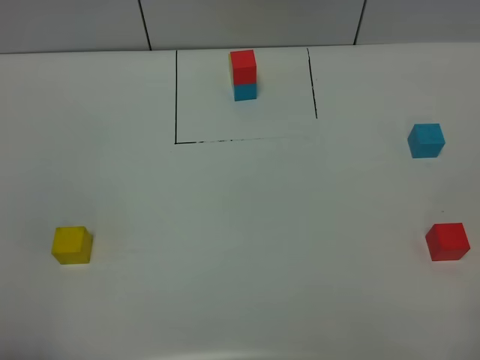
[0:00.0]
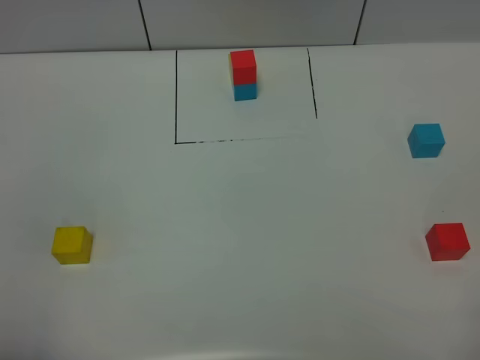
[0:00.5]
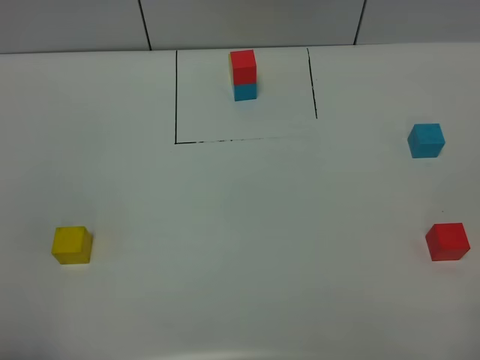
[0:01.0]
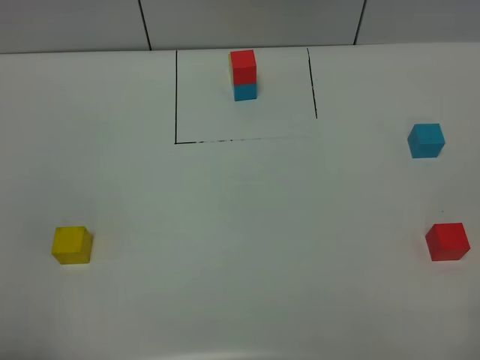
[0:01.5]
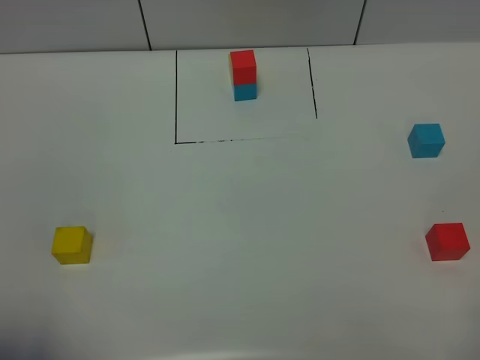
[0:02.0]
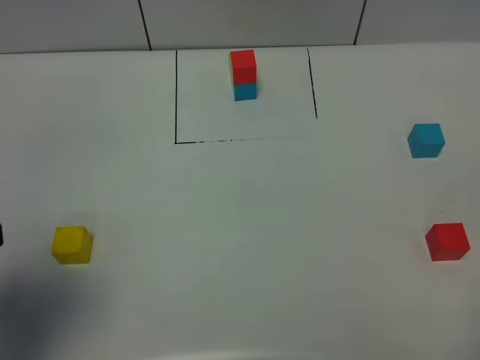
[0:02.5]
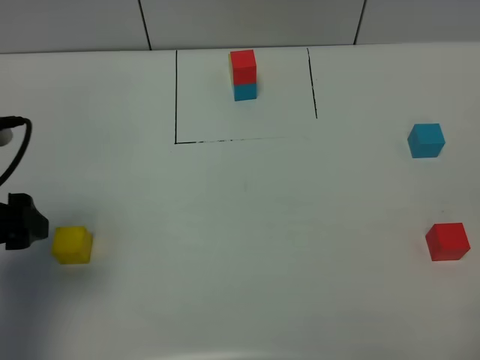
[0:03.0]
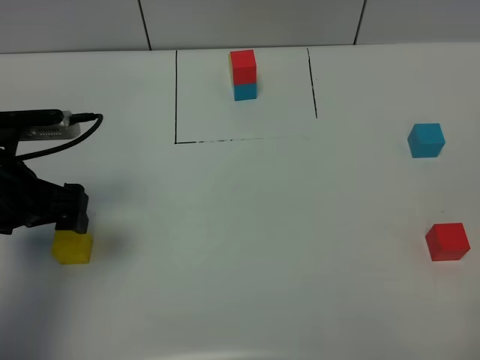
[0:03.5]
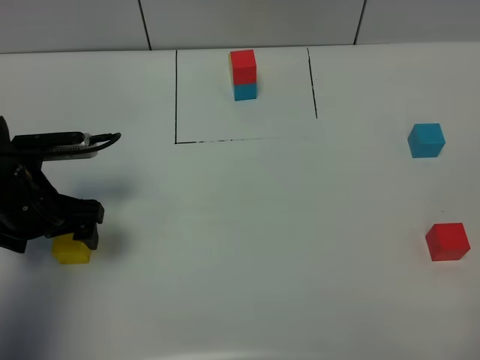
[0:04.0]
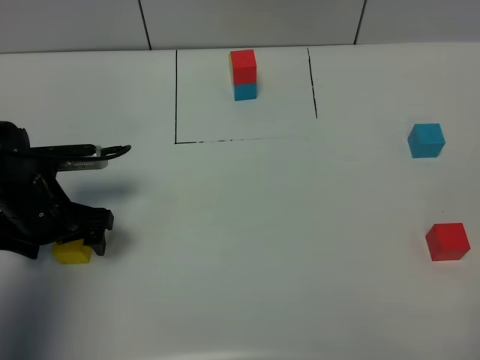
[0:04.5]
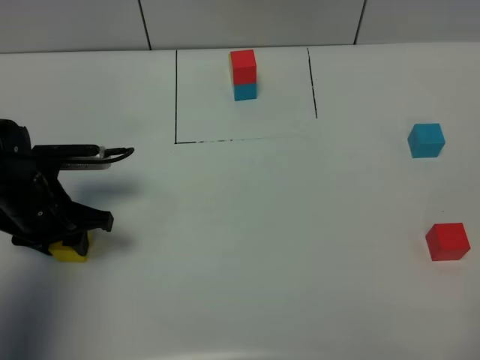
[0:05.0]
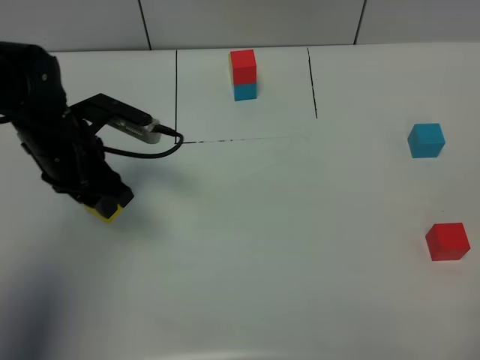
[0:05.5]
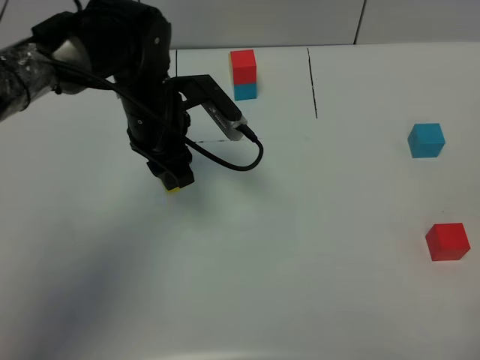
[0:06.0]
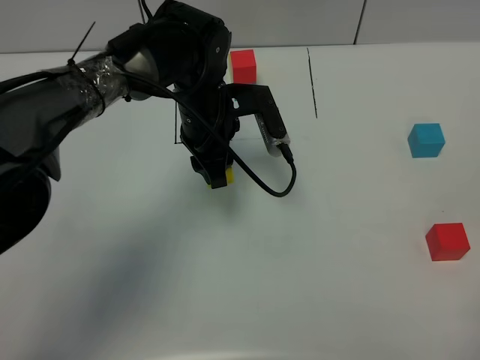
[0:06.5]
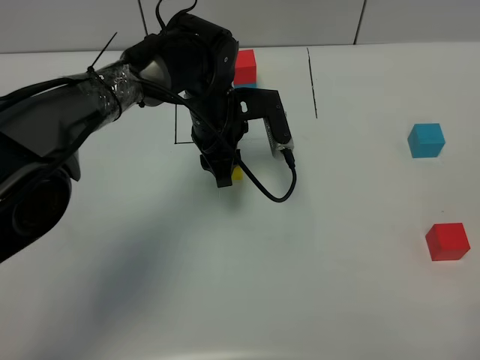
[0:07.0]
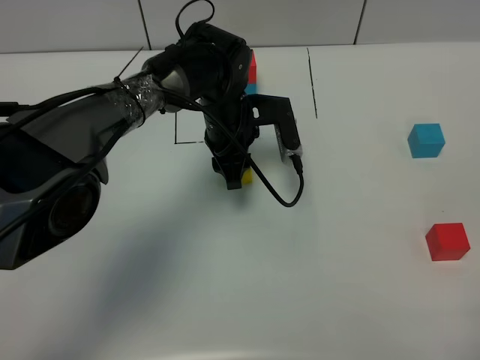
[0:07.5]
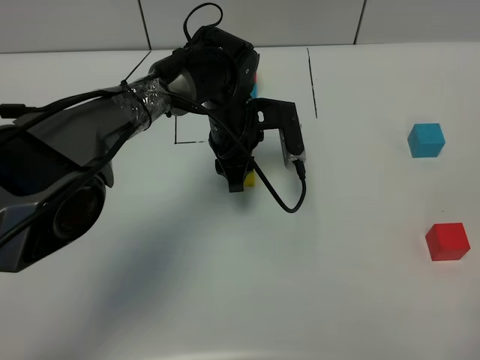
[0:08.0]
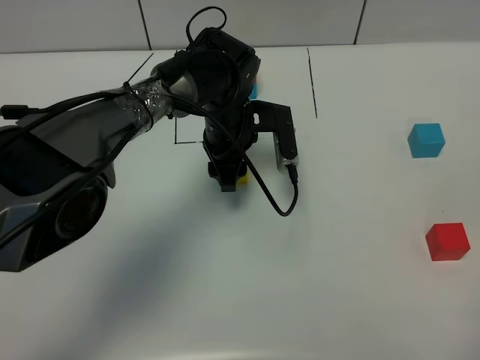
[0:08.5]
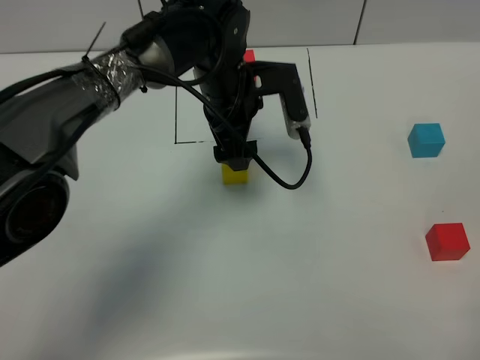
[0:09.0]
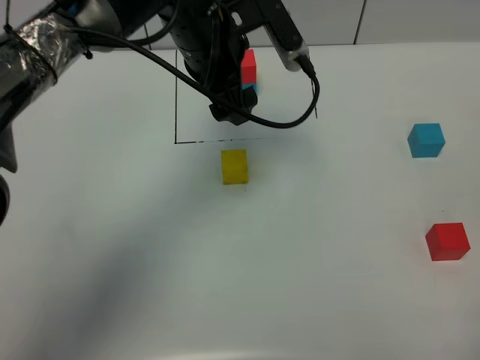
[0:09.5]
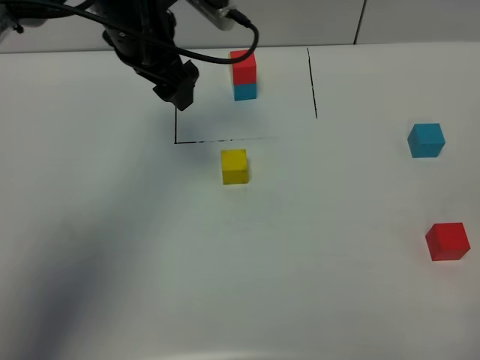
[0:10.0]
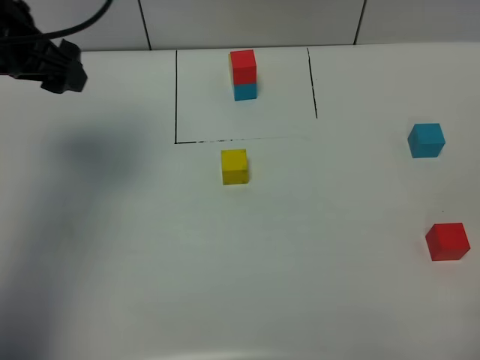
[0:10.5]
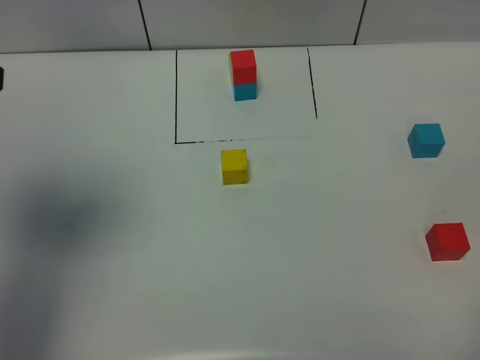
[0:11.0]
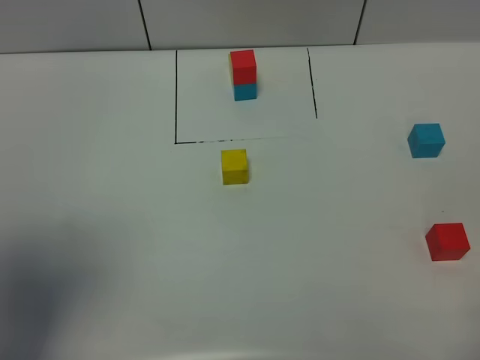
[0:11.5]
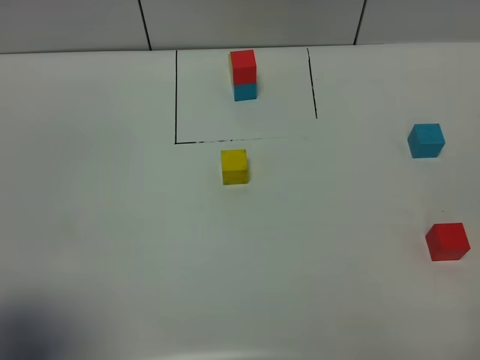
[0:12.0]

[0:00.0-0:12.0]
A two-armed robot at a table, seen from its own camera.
Task of the whole recording: According to the building block template in front, assemble the scattered blocks together.
Step, 0:00.0 to 0:08.0: Put the yellow build block in the center of the table.
0:02.0 to 0:04.0: The left gripper travels forward and downward by some 30 cm.
0:04.0 to 0:06.0: The left gripper goes roughly 20 cm to the right and forward, and closes.
0:06.0 to 0:08.0: The left gripper goes approximately 10 cm to the right and downward.
0:08.0 to 0:10.0: The left gripper travels upward and to the left by some 20 cm, and opens.
0:10.0 to 0:12.0: The left gripper is displaced backward and to the left by about 40 cm.

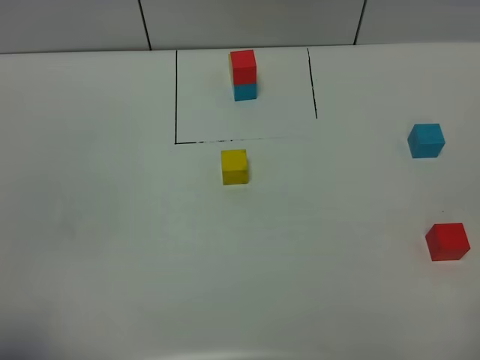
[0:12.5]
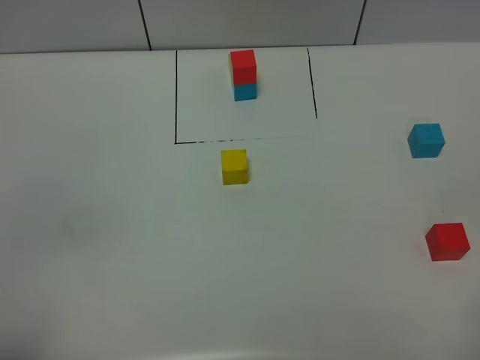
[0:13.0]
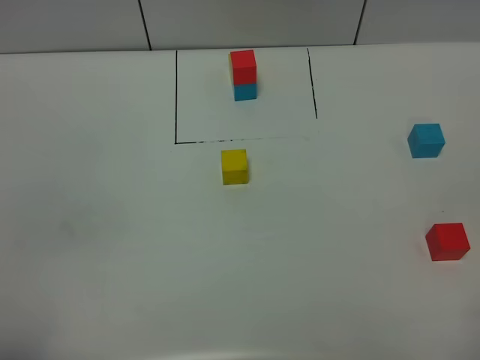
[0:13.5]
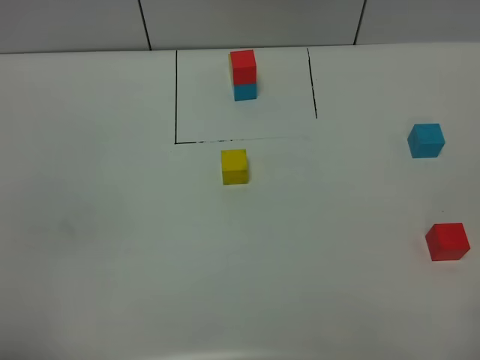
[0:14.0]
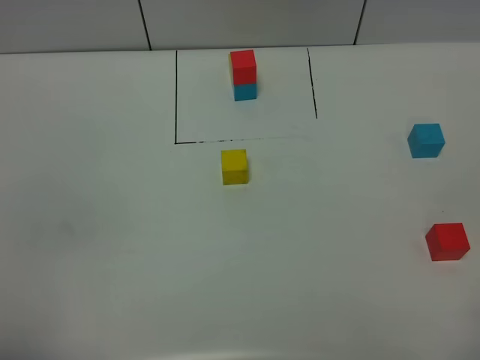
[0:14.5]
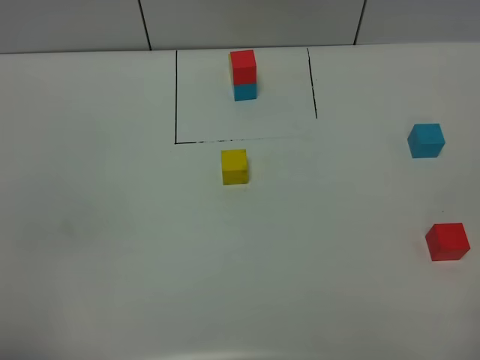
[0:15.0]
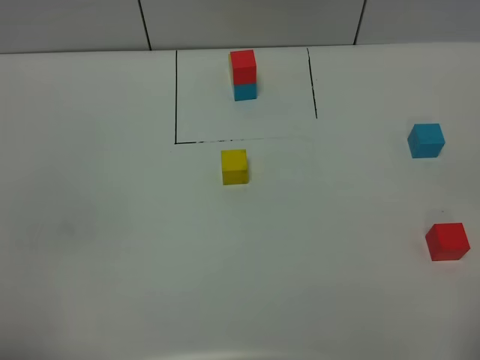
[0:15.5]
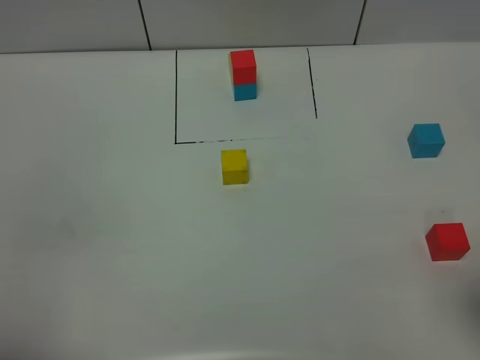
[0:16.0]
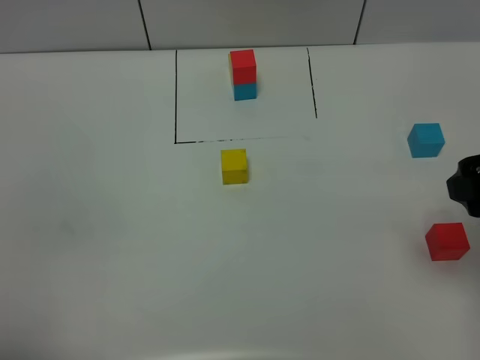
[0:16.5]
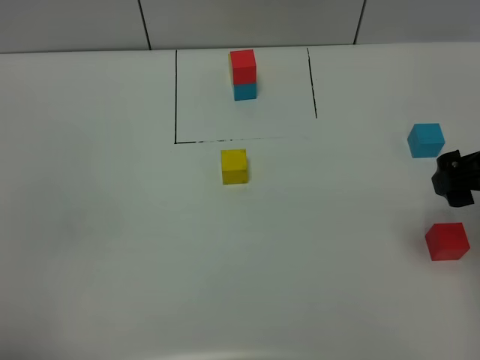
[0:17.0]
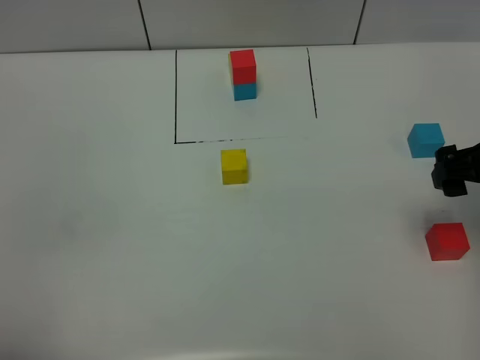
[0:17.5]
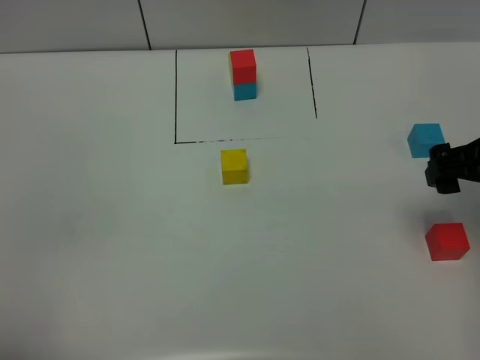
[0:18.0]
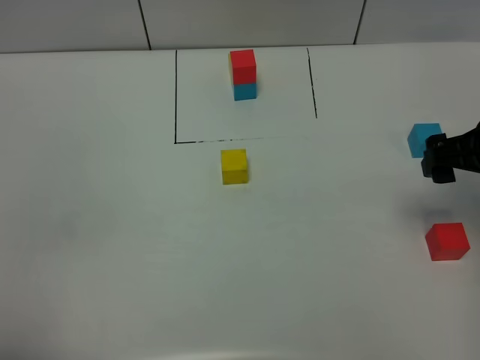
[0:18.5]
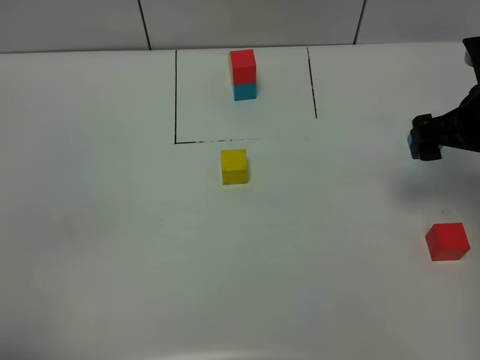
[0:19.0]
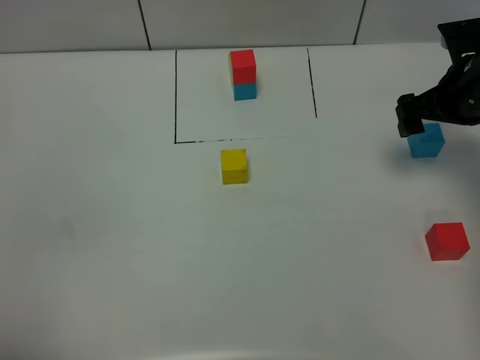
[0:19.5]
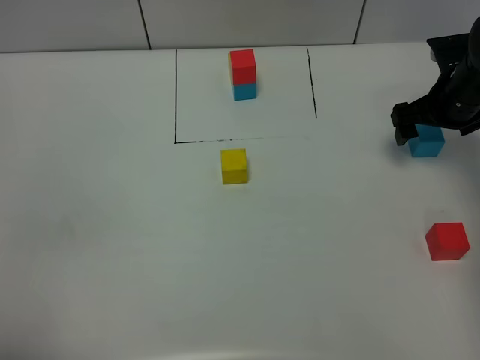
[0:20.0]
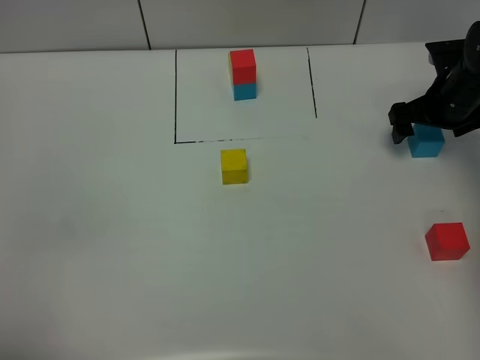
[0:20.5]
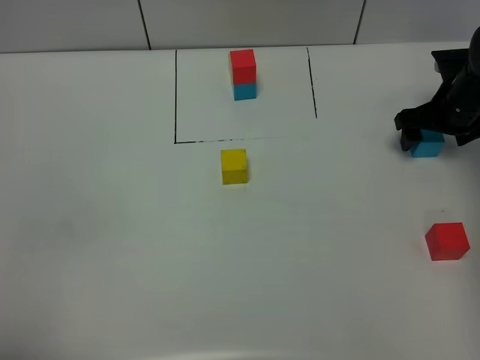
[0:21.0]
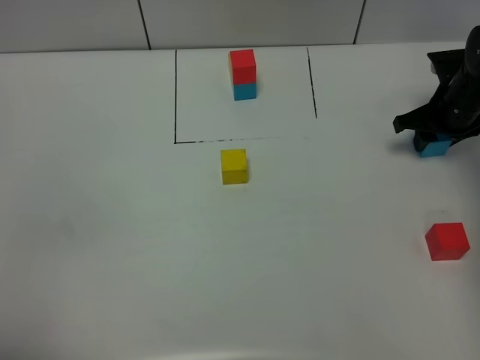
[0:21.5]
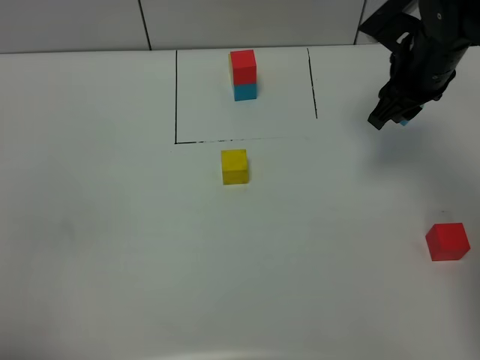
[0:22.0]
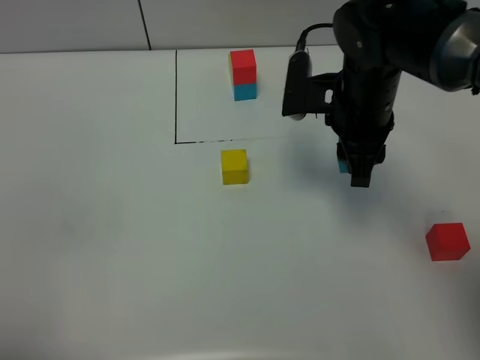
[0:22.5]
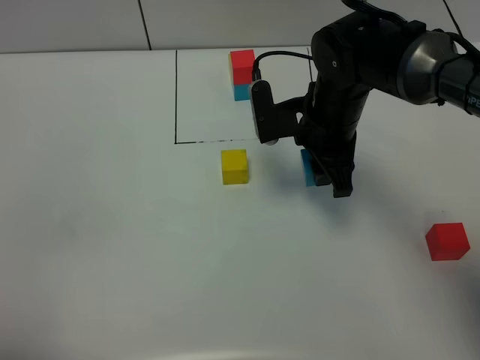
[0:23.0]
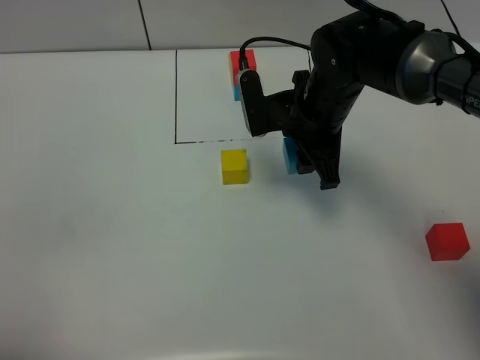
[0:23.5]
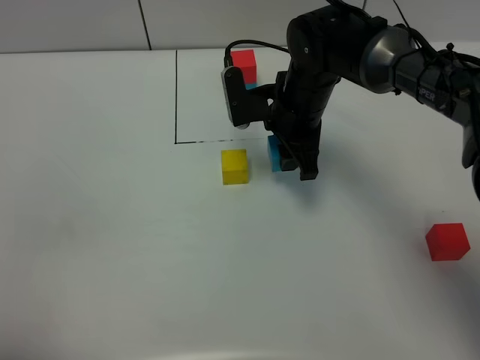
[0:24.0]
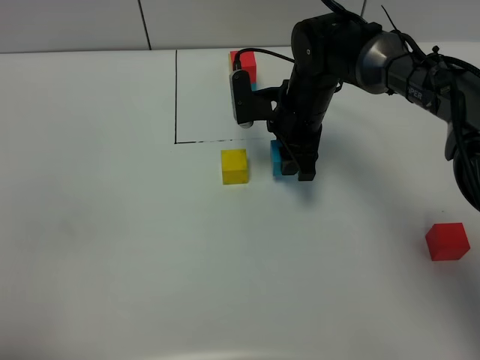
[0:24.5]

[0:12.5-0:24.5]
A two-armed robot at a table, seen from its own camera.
Task of the whole recording: According to the building block template in front, assemble the scattered blocks together.
0:14.5 to 0:16.5: The right gripper is displaced forward by roughly 20 cm.
0:16.5 to 0:18.5: The right gripper travels forward and downward by about 10 cm.
0:18.5 to 0:20.5: The right gripper shifts about 20 cm forward and downward.
0:20.5 to 0:22.5: The right gripper is displaced to the left, upward and backward by roughly 20 cm, and closes.
0:22.5 to 0:24.5: The right gripper travels downward and forward by about 10 cm.

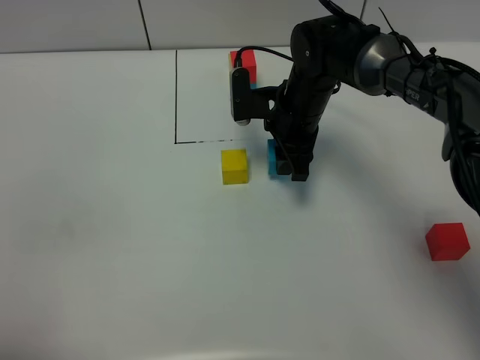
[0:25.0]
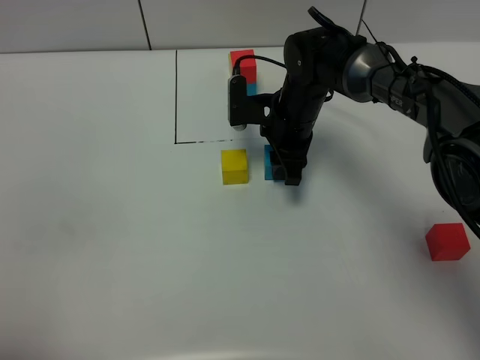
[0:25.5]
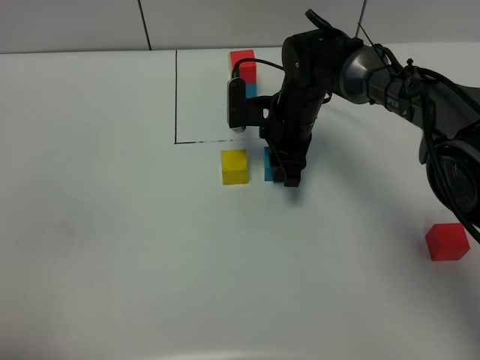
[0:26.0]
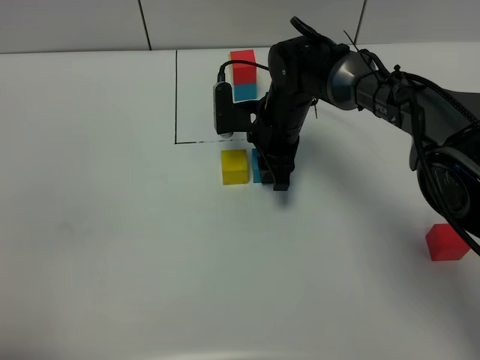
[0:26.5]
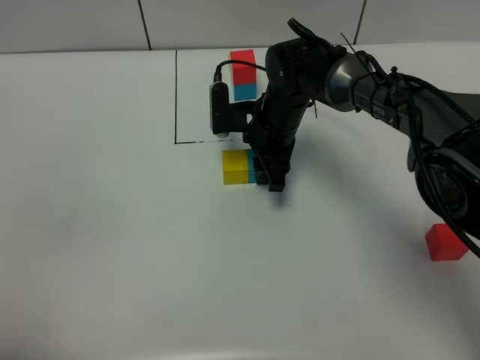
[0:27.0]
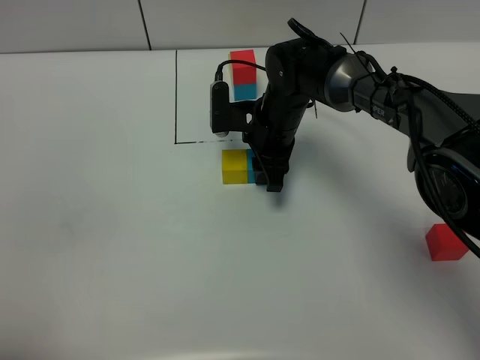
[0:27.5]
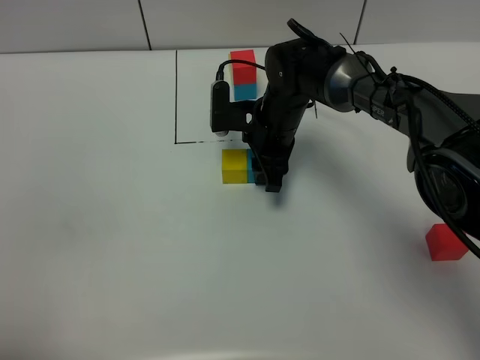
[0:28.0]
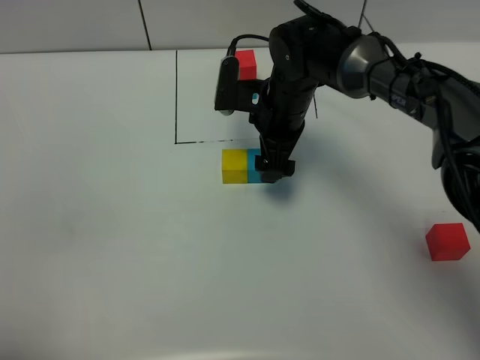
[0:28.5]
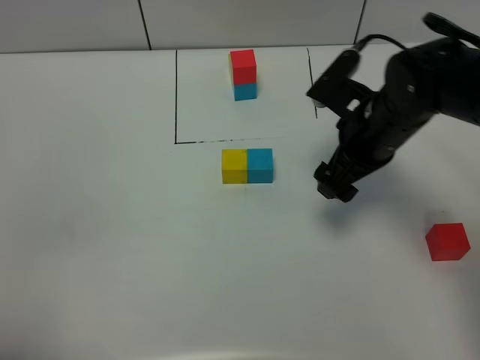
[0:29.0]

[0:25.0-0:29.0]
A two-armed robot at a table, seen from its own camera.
Task of the whole recording: According to the building block template in front, assemble the scattered blocks together.
Step, 0:25.0 to 0:27.5: Put the blue build block on the right of the yellow build block.
0:25.0 to 0:27.0: The grippers make only small movements.
0:27.0 to 0:29.0: The right gripper goes some 15 cm to the right, backward and upward, and opens its fingers.
